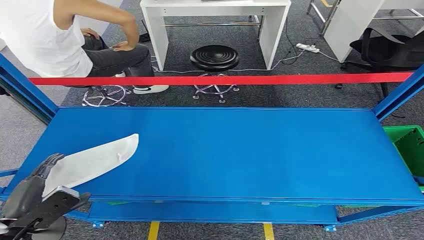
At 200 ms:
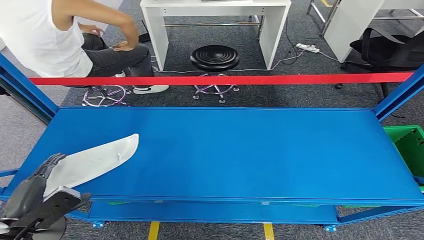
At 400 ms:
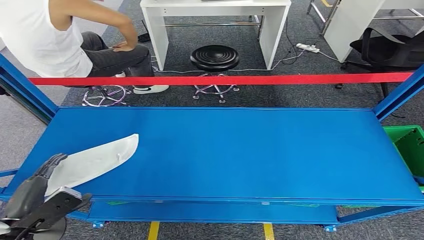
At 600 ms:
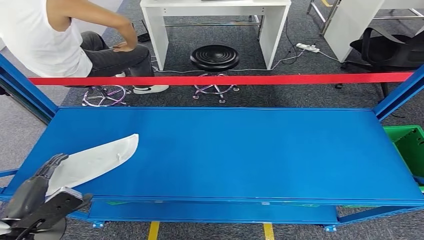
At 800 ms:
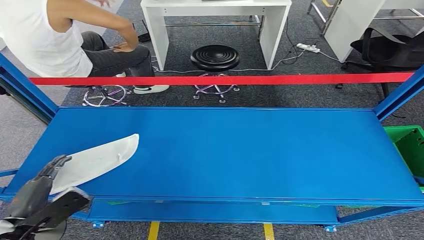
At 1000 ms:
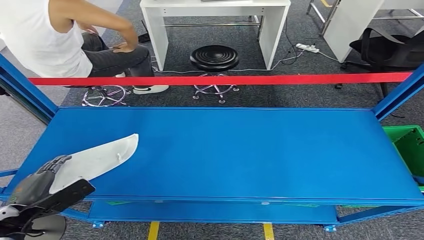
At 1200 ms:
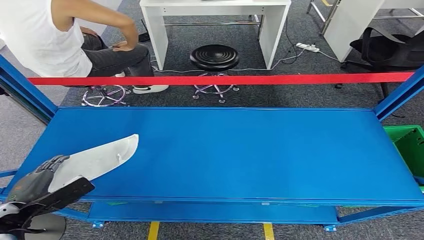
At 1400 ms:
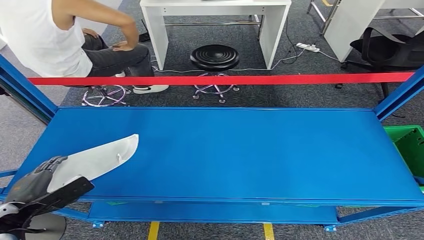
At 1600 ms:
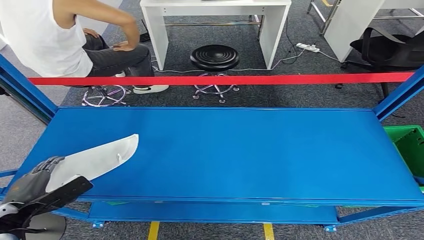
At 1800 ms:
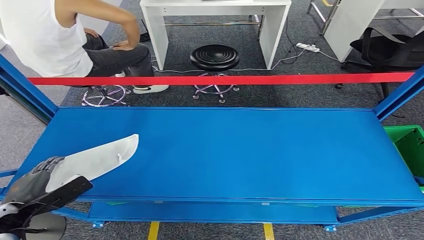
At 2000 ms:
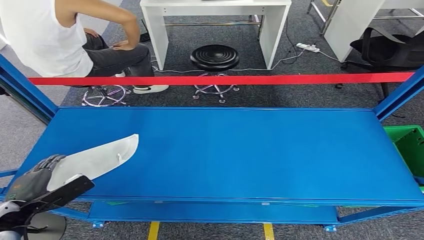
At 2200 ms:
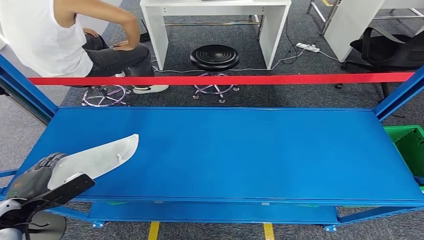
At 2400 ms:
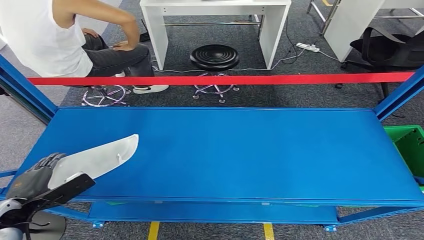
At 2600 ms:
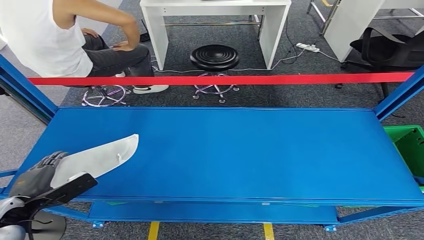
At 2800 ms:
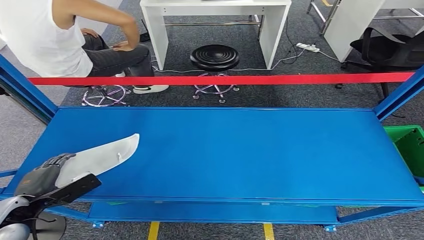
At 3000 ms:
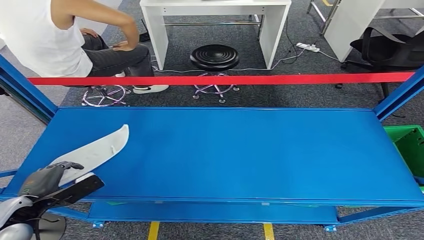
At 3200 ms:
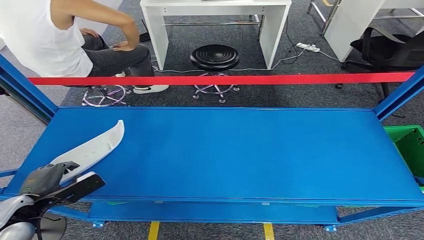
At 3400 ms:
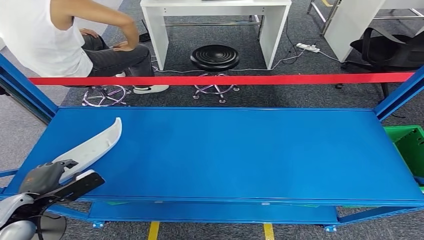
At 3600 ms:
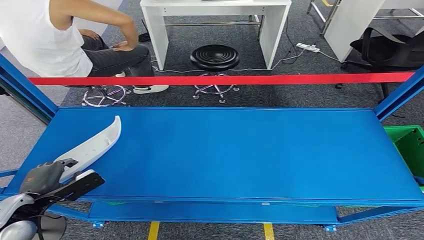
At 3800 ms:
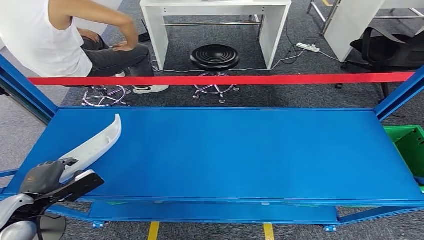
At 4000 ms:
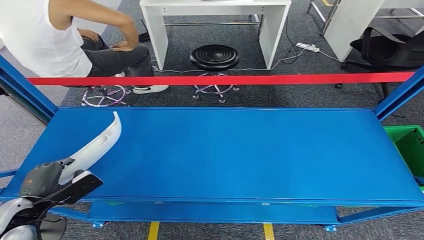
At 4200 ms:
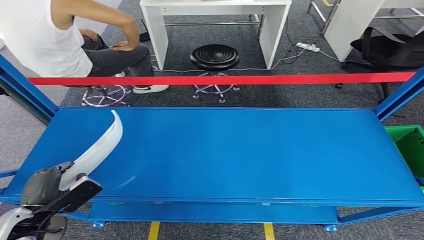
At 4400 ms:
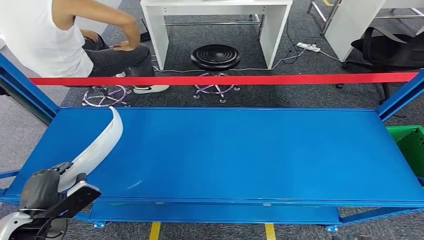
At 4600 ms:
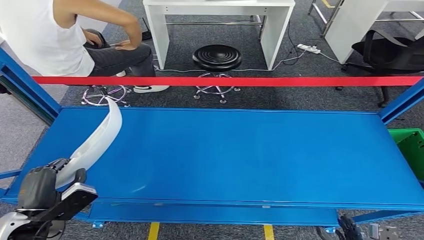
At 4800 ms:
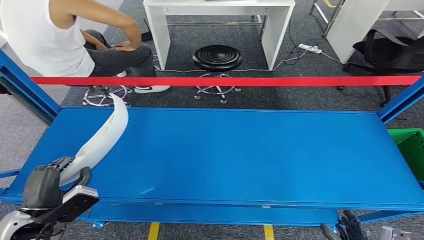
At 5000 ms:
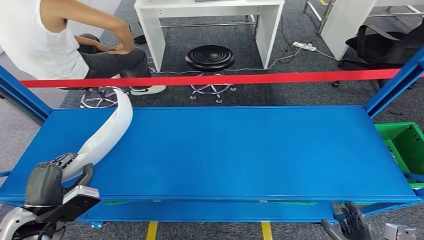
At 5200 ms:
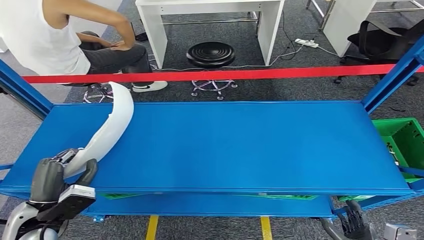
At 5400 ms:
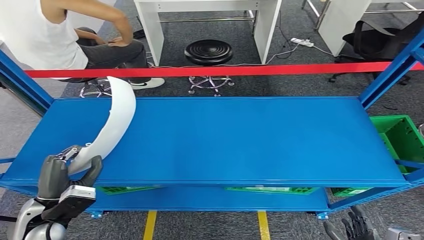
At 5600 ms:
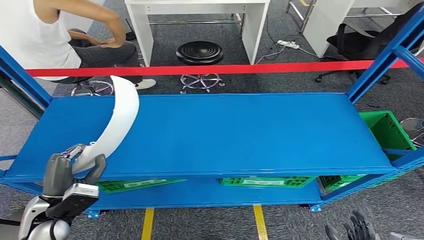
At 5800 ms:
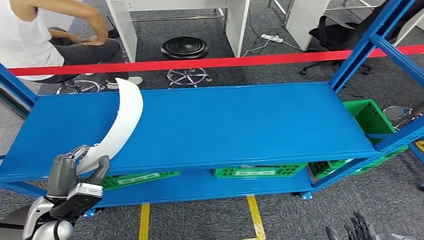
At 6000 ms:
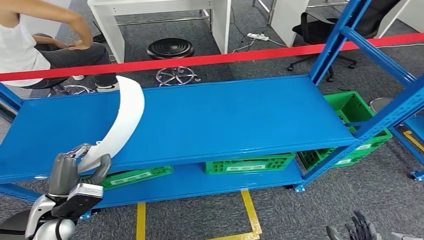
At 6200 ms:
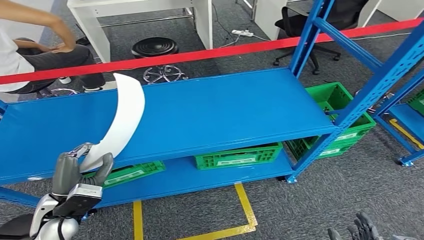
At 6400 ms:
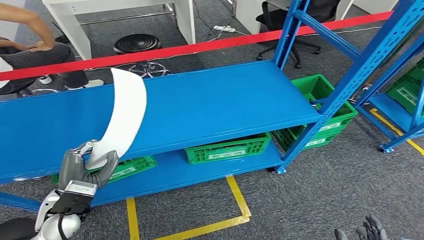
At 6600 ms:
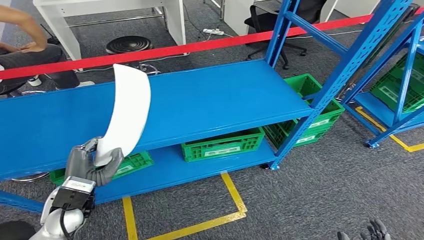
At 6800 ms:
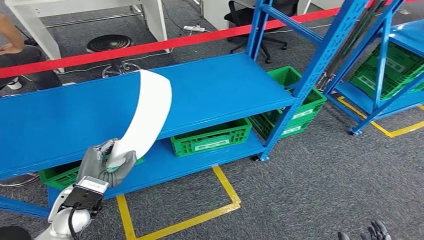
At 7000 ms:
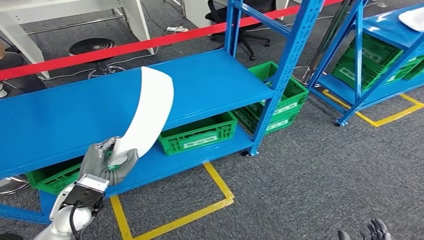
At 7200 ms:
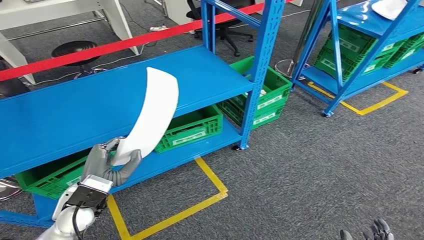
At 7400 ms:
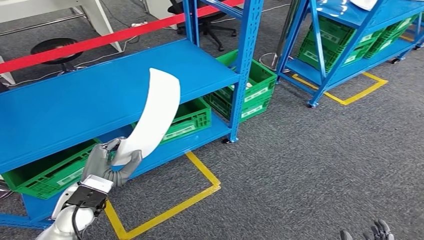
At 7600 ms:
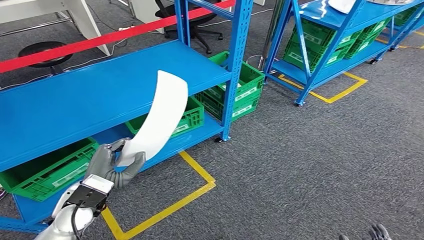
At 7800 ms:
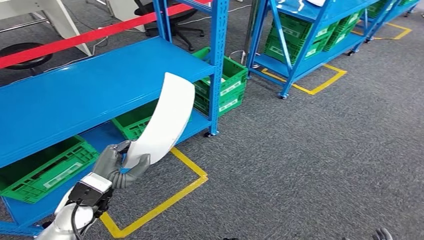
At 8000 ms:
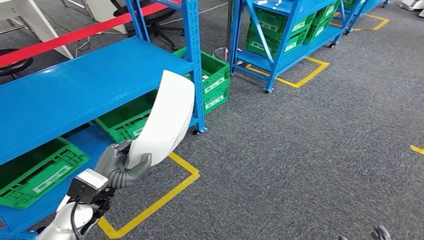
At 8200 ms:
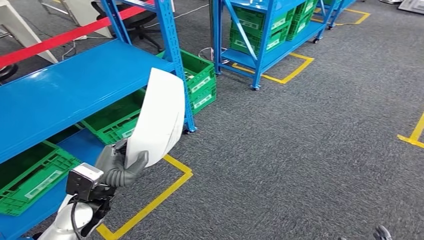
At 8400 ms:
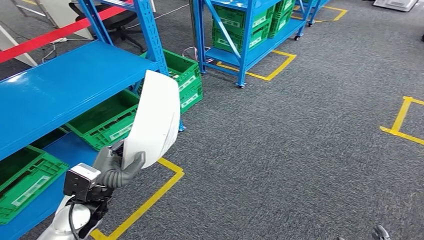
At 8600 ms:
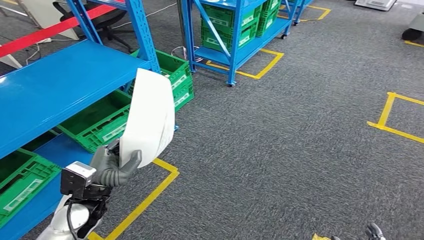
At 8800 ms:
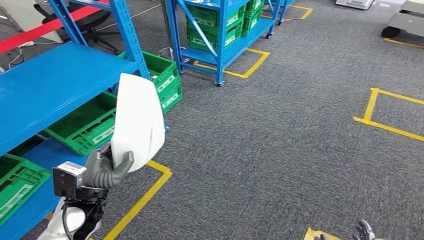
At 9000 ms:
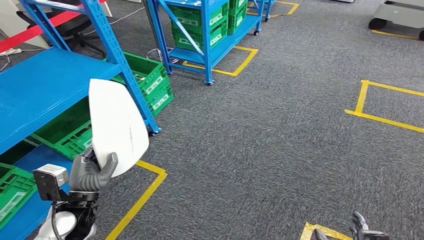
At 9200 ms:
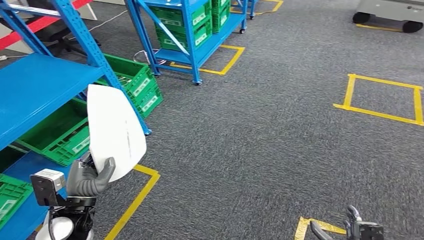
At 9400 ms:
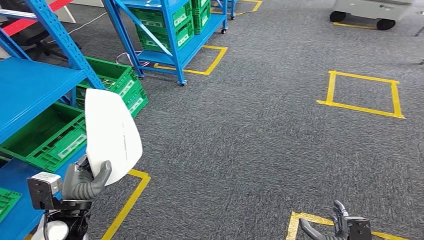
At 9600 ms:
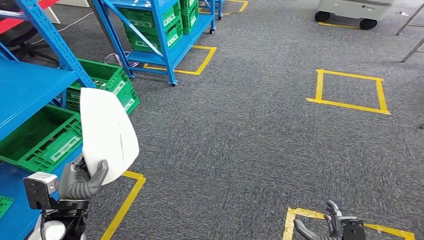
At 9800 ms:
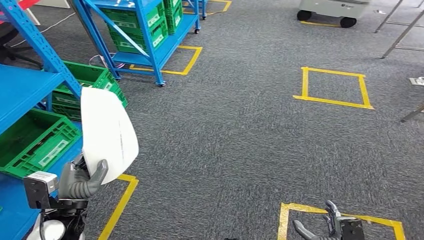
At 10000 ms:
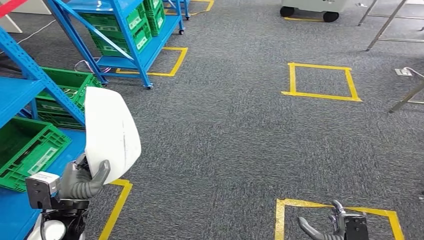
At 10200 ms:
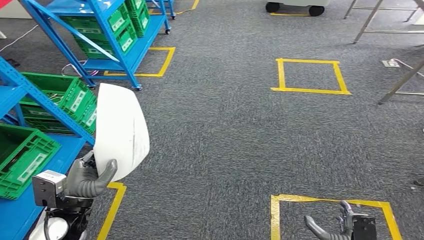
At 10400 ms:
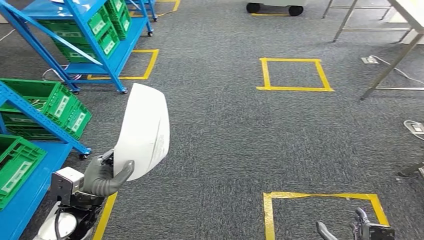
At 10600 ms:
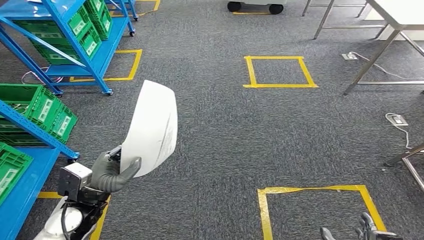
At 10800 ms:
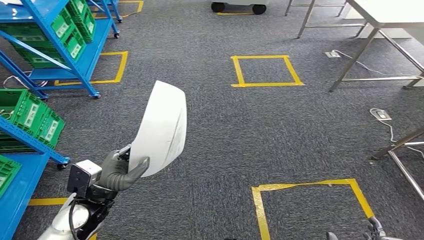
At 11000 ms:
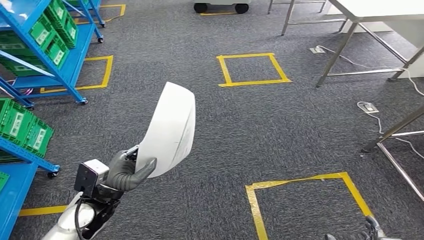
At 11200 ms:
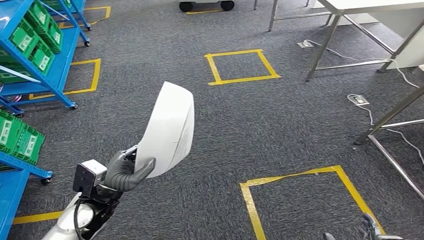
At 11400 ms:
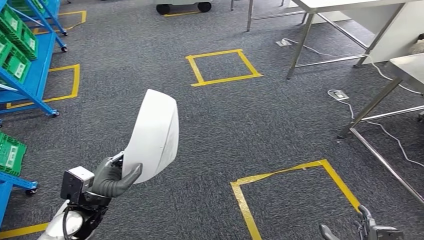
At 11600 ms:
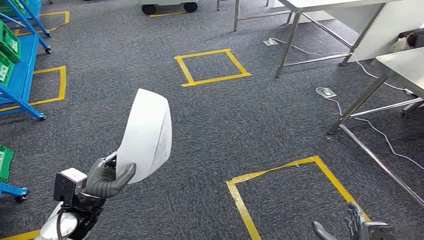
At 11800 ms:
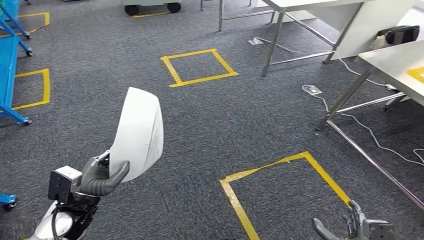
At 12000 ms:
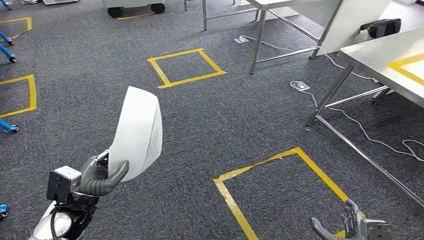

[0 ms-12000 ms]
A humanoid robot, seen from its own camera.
Step, 0 ms to 6000 ms: Pick up the small component from the shelf.
1600 ms to 3000 ms: The hands make only small movements.
3000 ms to 4400 ms: The left hand moves approximately 5 cm.

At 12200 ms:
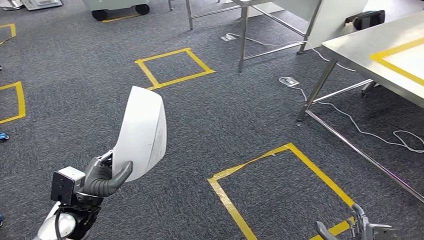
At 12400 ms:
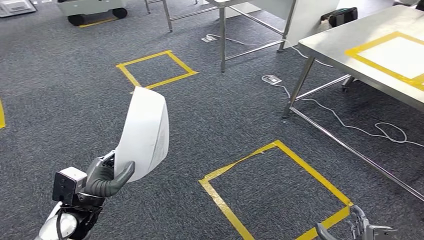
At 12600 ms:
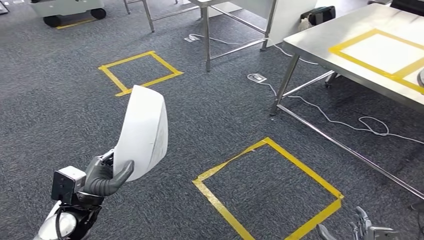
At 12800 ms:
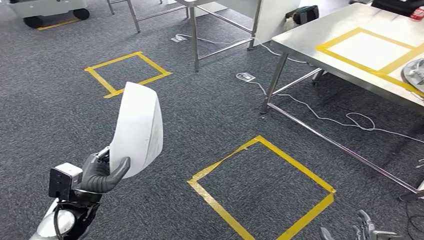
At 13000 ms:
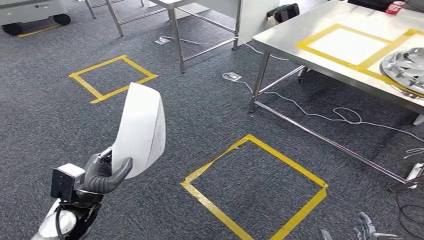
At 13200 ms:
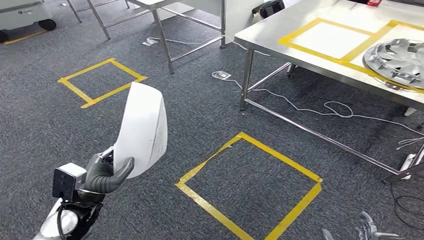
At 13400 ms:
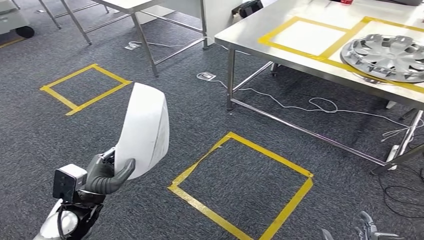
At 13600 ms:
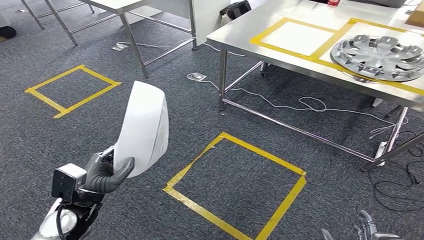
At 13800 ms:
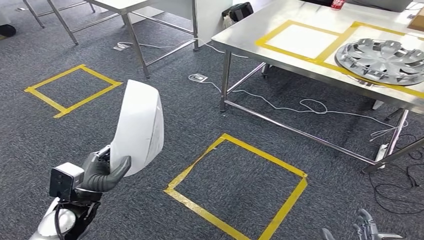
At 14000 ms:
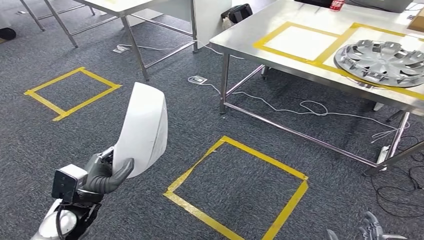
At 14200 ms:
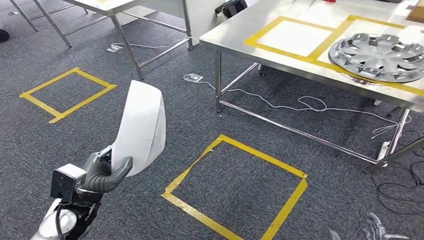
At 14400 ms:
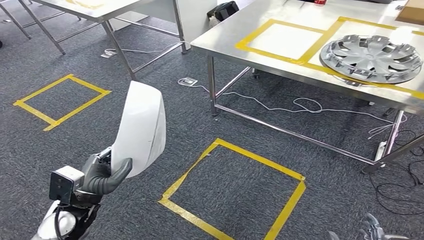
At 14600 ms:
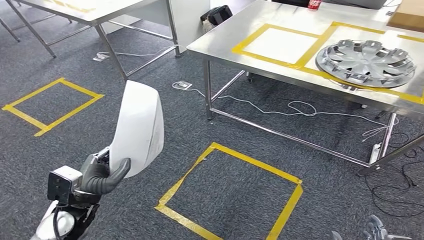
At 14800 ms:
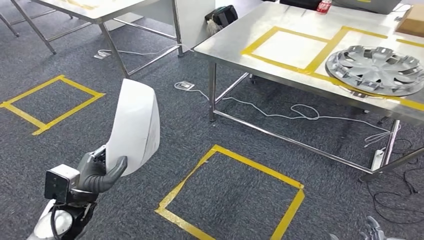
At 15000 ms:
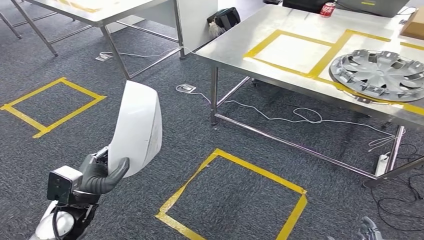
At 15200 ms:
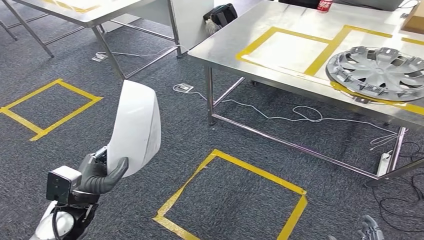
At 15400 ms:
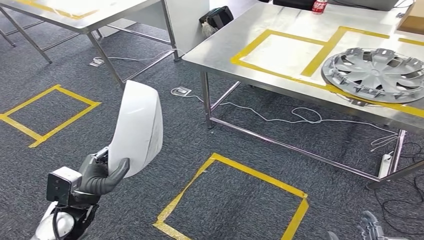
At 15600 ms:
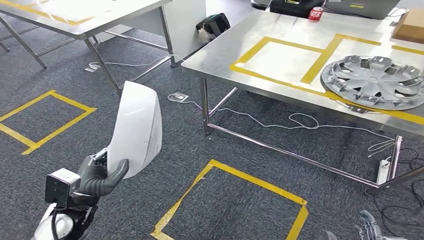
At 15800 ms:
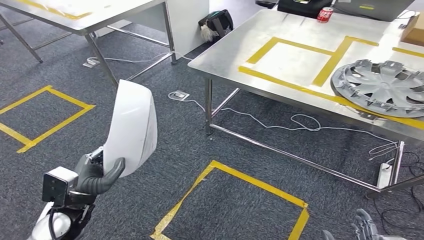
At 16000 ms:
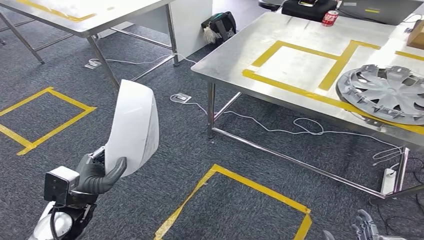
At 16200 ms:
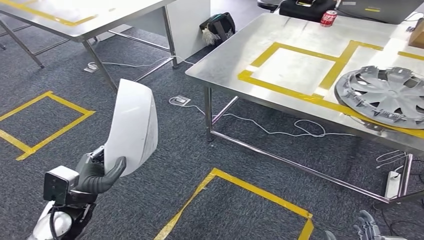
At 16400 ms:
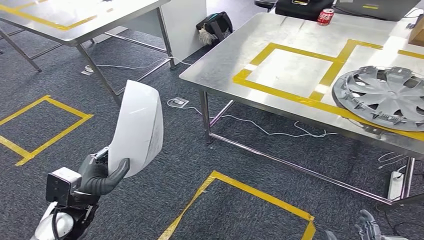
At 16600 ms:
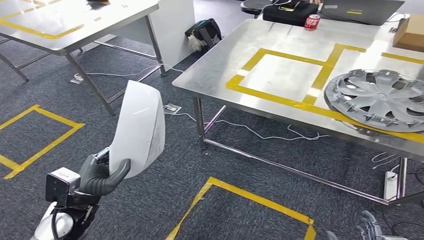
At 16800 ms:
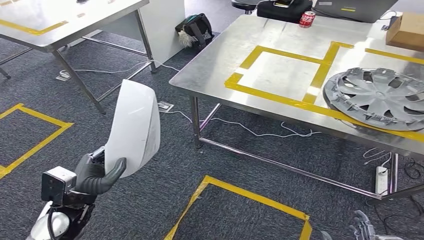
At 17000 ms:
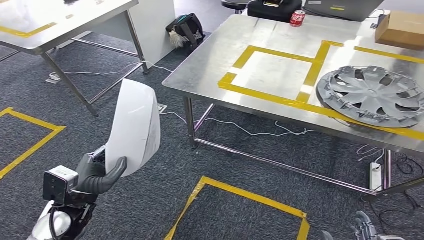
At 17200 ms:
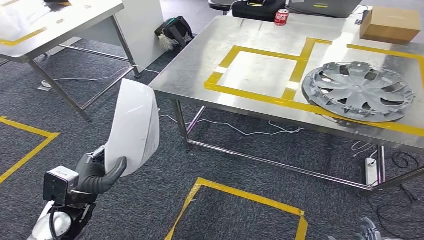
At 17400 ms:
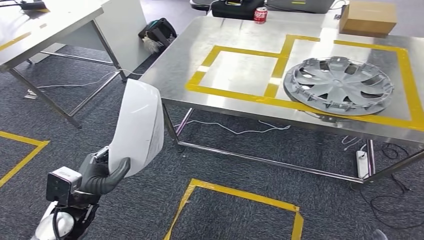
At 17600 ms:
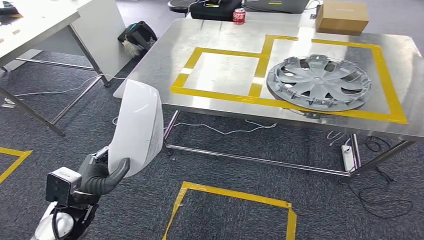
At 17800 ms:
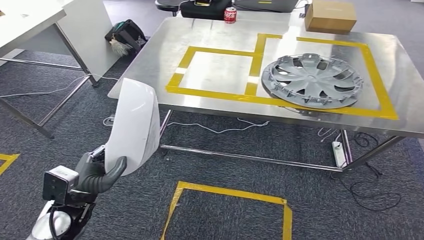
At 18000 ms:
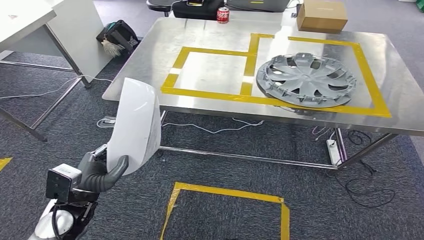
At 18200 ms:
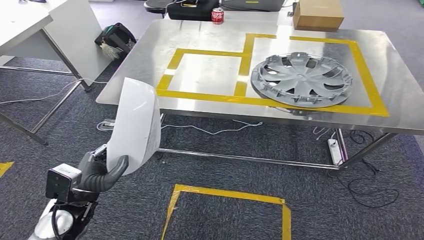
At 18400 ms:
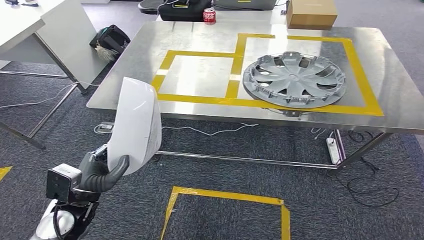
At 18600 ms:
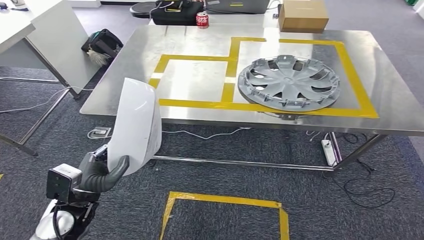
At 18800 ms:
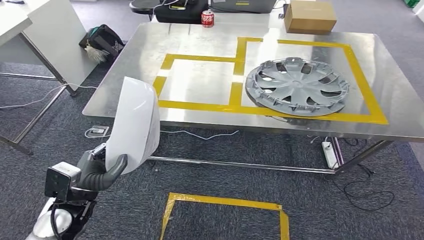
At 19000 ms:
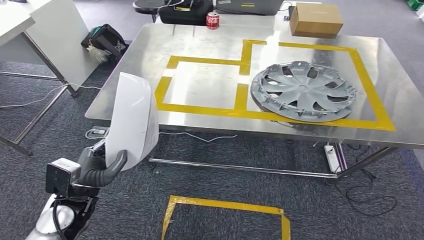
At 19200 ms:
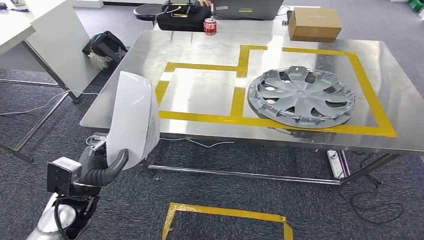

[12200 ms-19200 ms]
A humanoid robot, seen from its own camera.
Step, 12200 ms to 15400 ms: Move the small component to the workbench.
